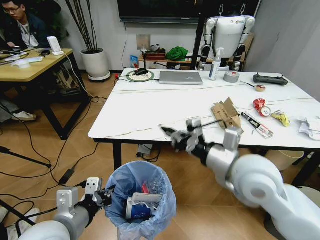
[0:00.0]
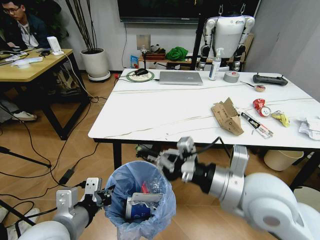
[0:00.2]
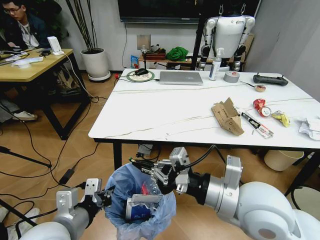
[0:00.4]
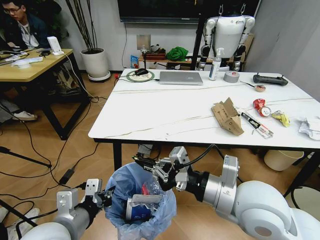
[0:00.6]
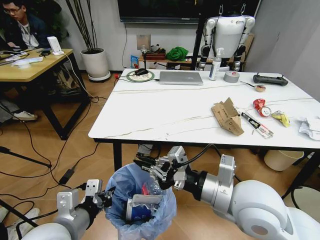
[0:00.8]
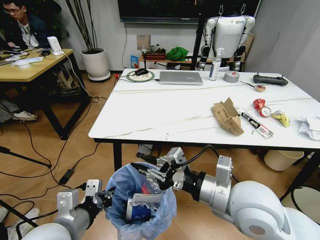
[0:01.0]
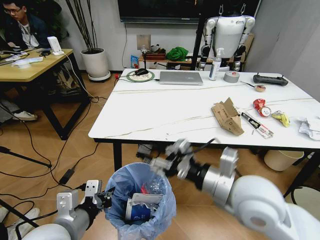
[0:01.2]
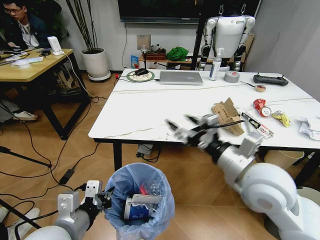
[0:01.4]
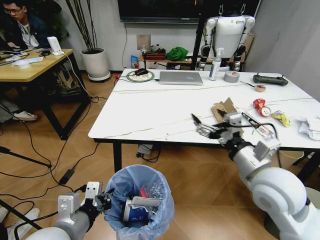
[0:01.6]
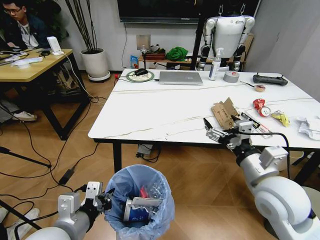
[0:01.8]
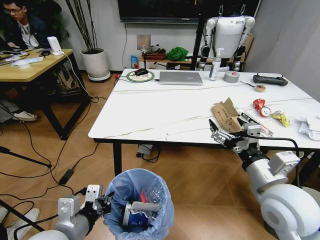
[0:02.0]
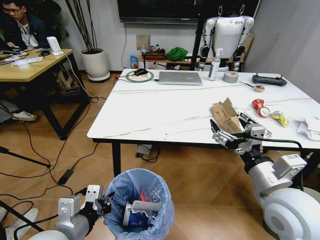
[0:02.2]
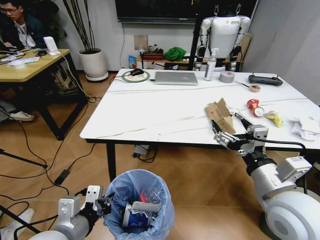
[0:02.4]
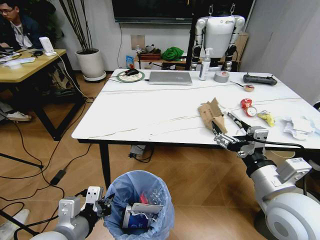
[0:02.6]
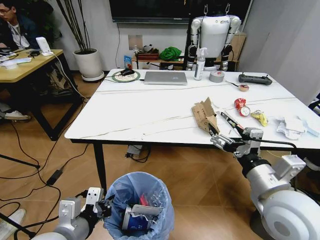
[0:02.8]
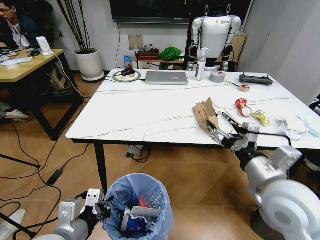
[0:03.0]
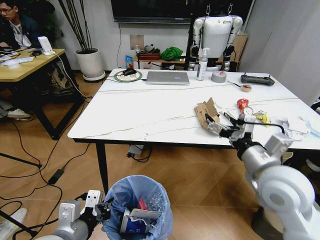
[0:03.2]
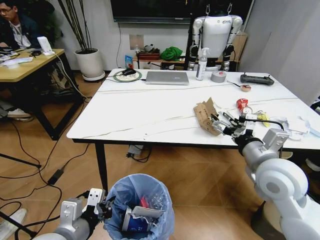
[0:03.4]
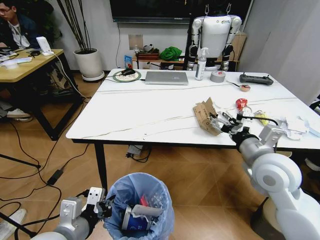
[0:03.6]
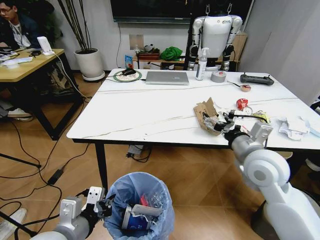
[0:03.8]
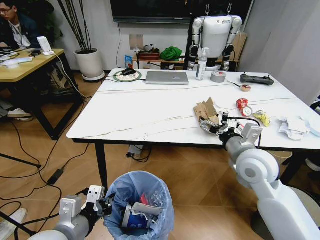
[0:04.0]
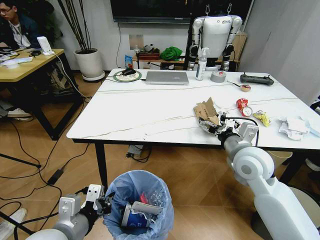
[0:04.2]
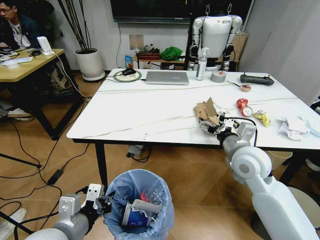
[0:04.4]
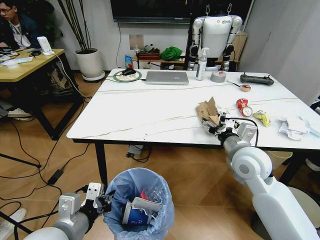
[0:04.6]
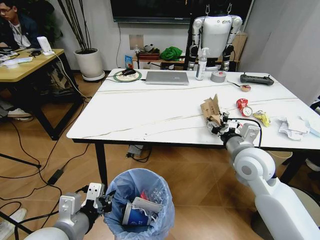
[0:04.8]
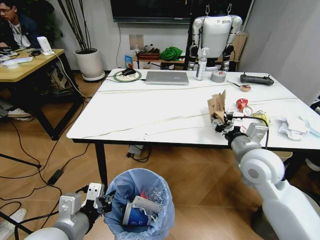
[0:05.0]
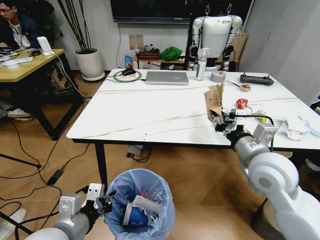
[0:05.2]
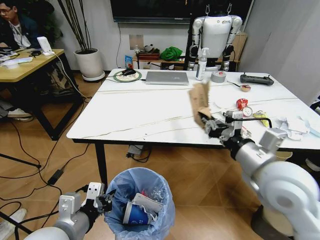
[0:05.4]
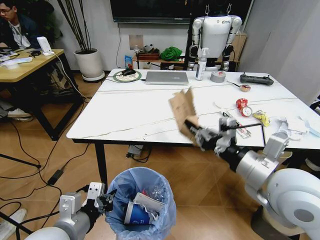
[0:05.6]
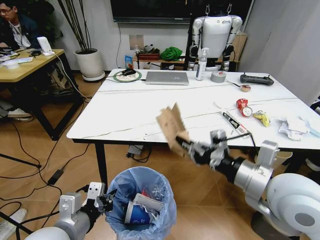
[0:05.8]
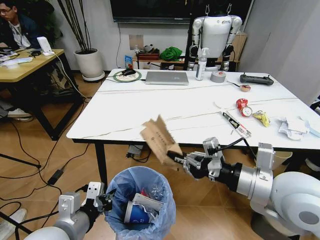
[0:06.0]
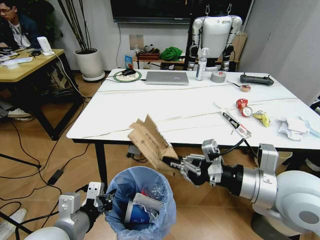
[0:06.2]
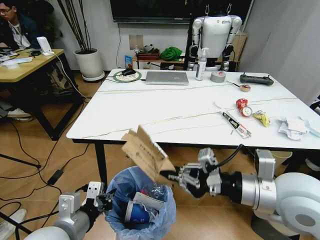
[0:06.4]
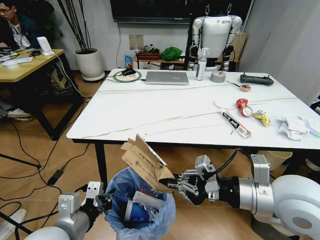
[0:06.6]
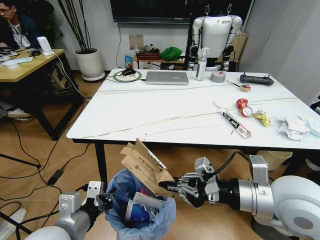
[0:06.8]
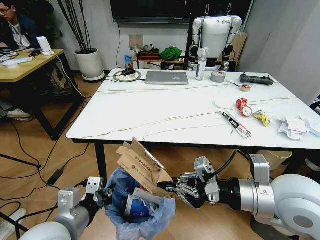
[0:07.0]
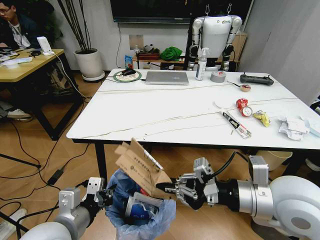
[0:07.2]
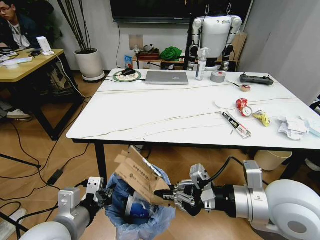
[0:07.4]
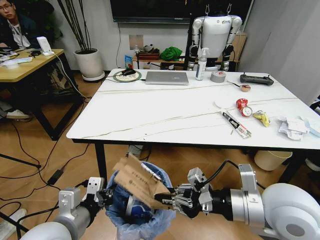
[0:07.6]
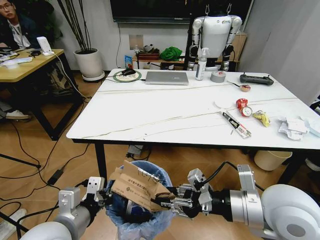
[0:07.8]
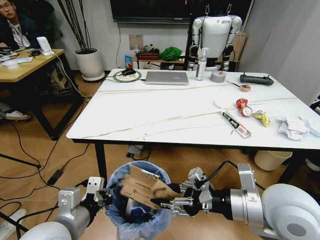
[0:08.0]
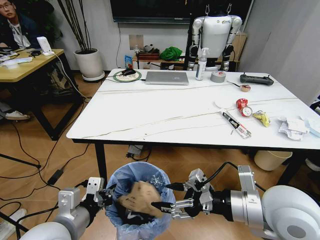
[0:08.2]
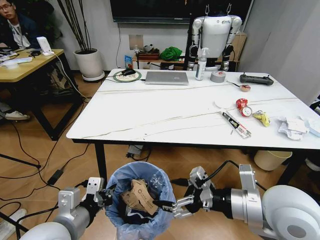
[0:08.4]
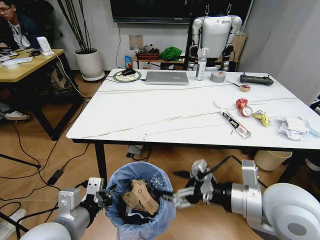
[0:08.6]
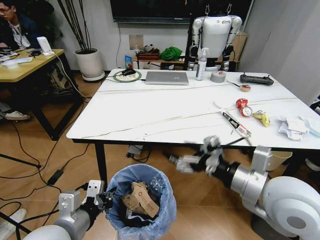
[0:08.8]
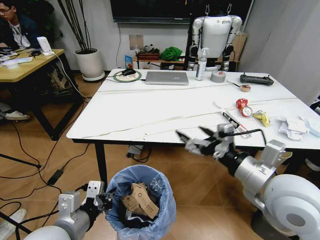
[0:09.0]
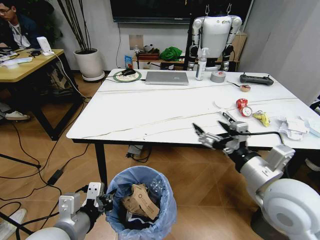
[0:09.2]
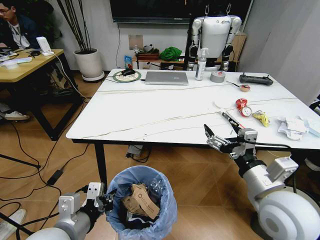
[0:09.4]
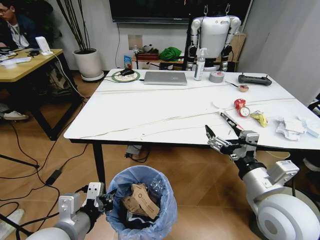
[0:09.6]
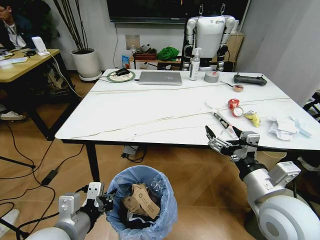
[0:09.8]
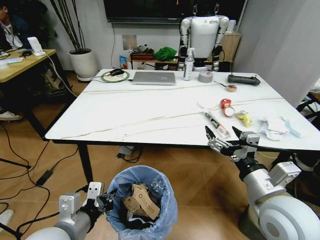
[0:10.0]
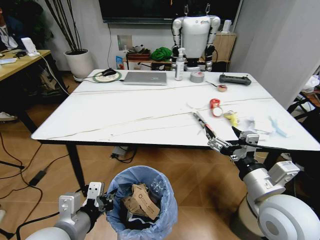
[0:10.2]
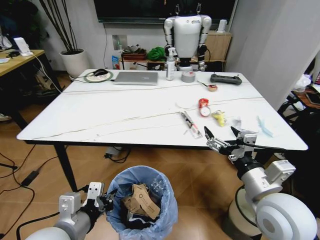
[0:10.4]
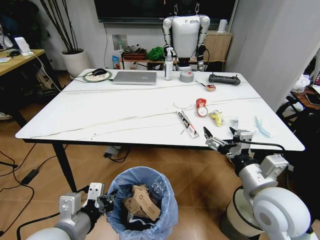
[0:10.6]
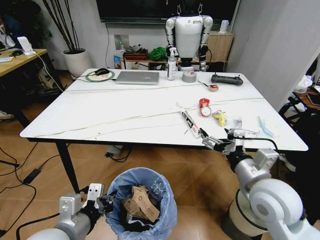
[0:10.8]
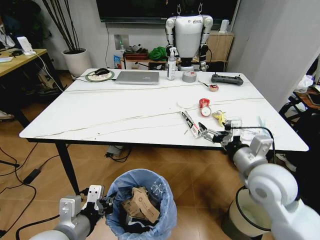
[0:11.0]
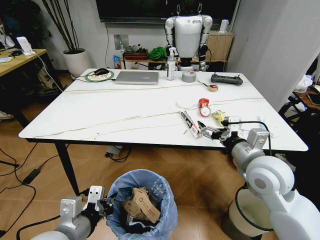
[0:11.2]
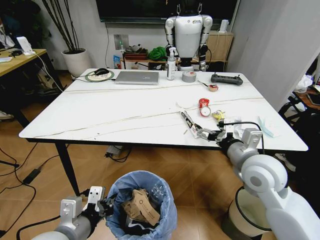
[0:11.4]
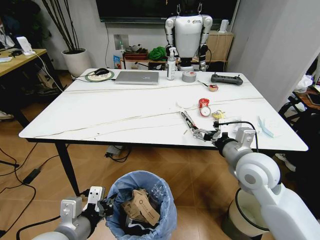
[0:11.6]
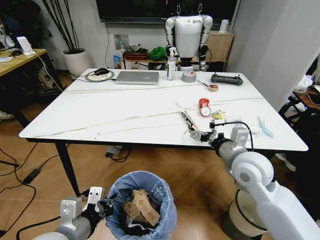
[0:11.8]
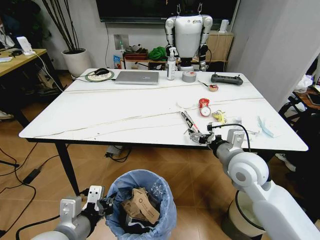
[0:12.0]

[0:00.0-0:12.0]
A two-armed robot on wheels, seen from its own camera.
Task of the whole recording: Pick up the trash bin and place the trash from the table into it.
0:00.0 to 0:01.6: The right gripper opens up.
0:01.6 to 0:03.0: The right gripper moves approximately 5 cm.
0:03.0 to 0:04.4: The right gripper moves forward, some 15 cm.
0:04.4 to 0:06.0: The right gripper travels backward and upward by approximately 15 cm, and closes.
0:06.0 to 0:07.6: The grippers move only a little.
0:07.6 to 0:09.0: The right gripper opens.
0:09.0 to 0:10.4: The right gripper heads downward, covering about 5 cm.
0:10.4 to 0:12.0: The right gripper shifts approximately 10 cm forward.

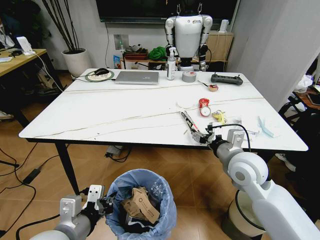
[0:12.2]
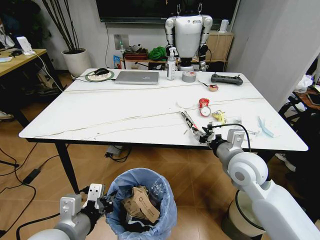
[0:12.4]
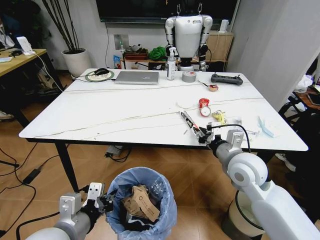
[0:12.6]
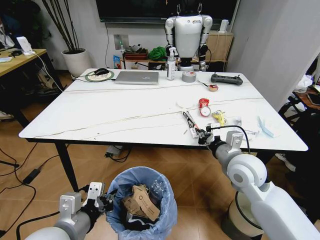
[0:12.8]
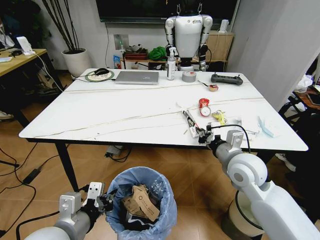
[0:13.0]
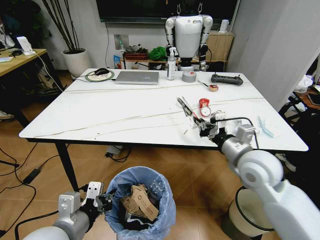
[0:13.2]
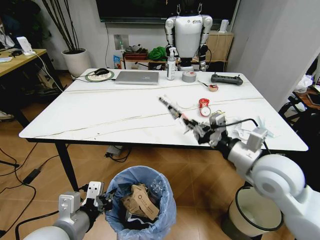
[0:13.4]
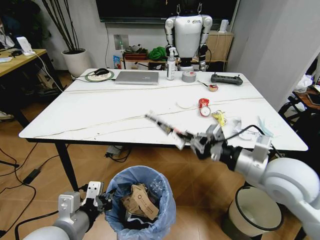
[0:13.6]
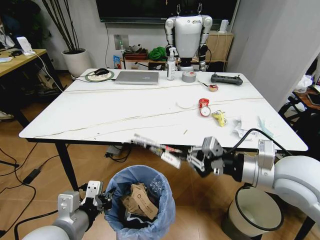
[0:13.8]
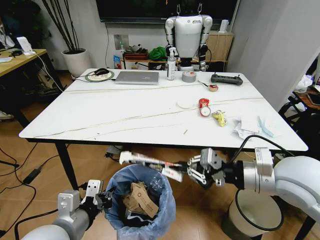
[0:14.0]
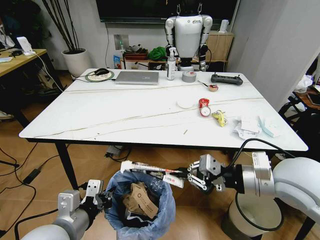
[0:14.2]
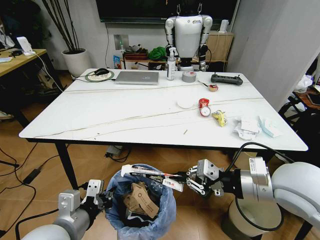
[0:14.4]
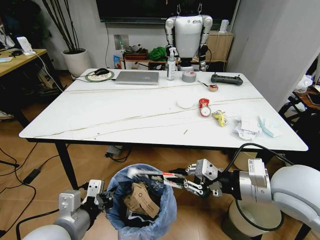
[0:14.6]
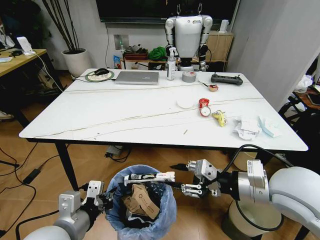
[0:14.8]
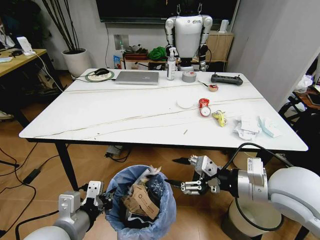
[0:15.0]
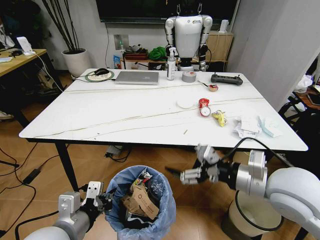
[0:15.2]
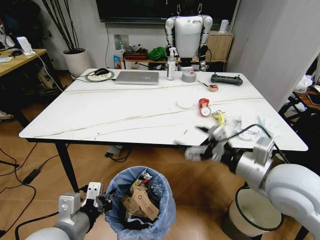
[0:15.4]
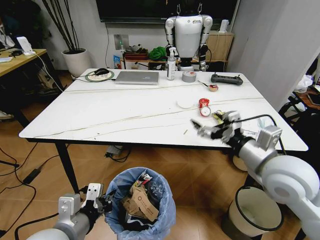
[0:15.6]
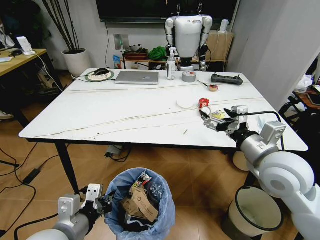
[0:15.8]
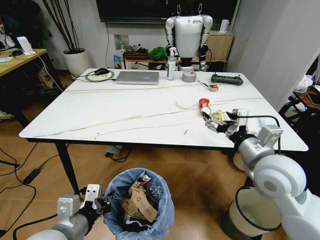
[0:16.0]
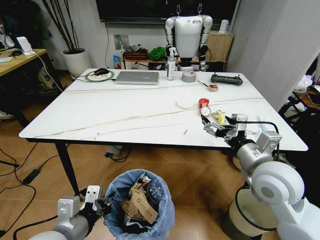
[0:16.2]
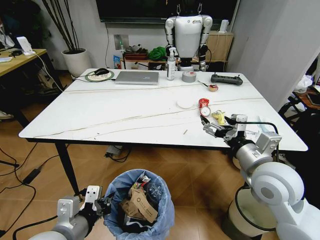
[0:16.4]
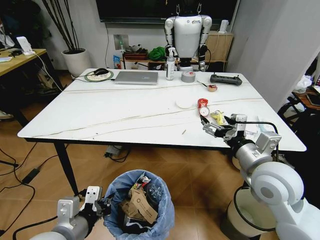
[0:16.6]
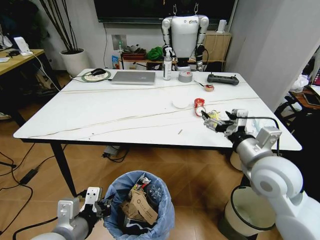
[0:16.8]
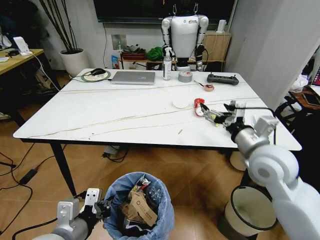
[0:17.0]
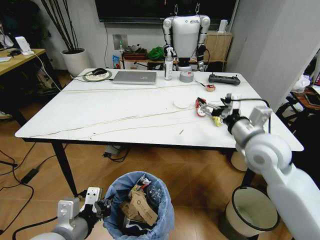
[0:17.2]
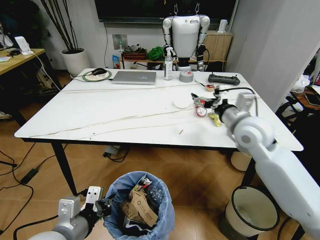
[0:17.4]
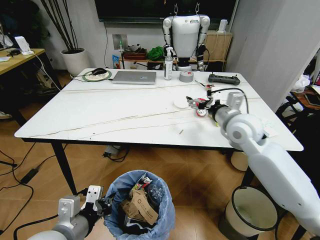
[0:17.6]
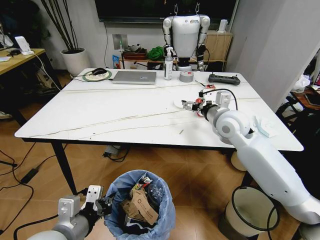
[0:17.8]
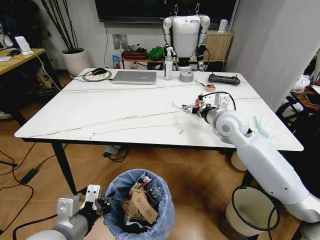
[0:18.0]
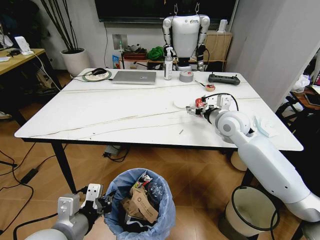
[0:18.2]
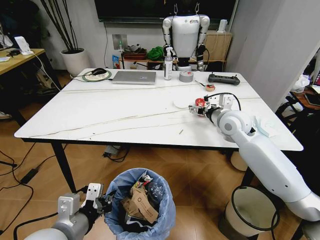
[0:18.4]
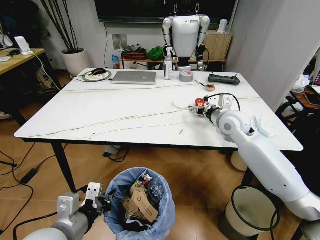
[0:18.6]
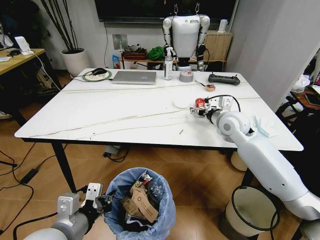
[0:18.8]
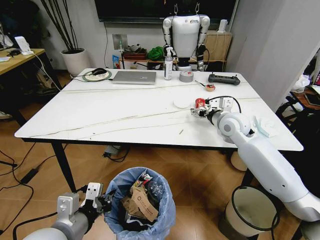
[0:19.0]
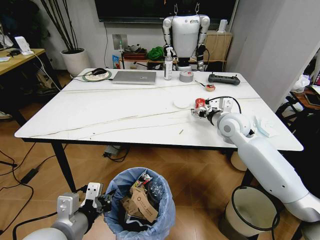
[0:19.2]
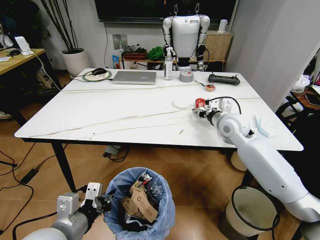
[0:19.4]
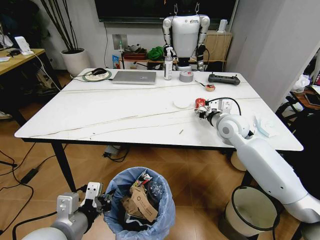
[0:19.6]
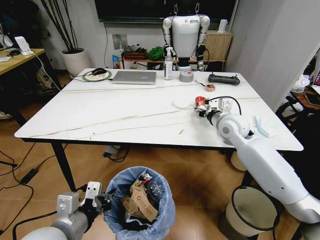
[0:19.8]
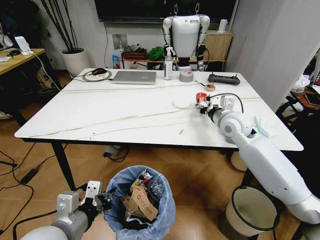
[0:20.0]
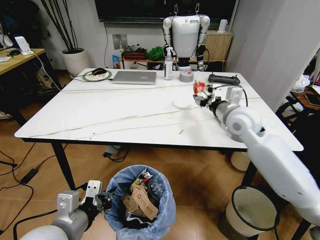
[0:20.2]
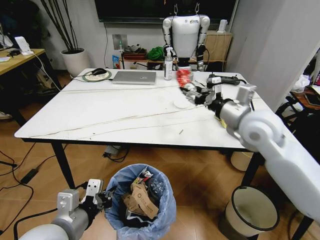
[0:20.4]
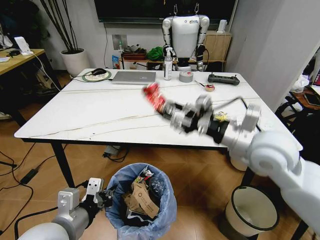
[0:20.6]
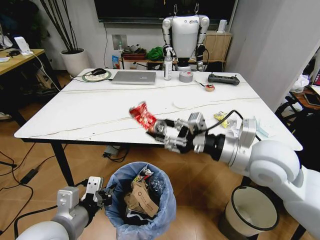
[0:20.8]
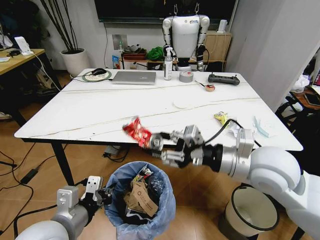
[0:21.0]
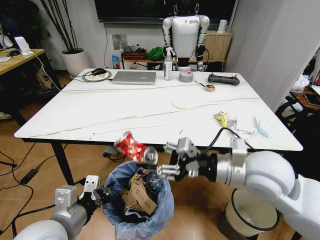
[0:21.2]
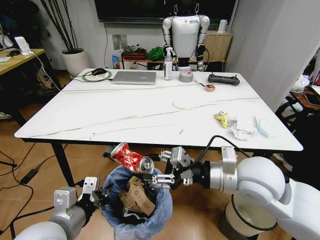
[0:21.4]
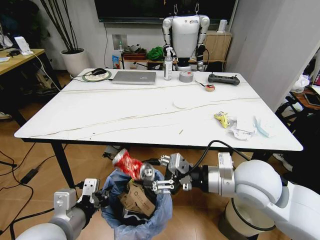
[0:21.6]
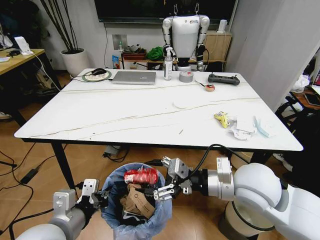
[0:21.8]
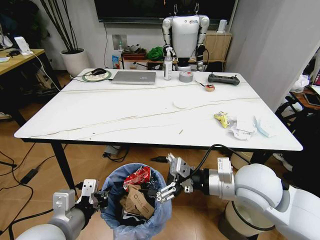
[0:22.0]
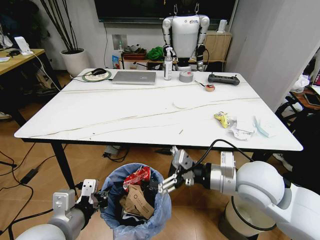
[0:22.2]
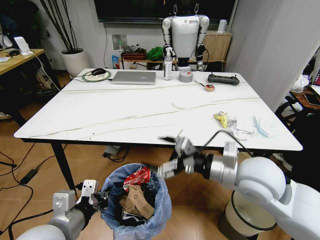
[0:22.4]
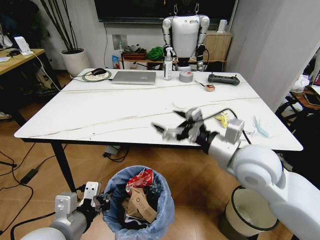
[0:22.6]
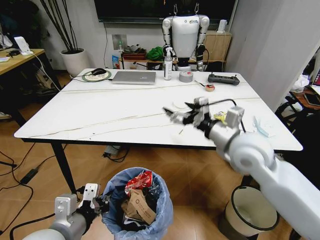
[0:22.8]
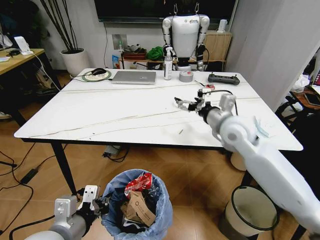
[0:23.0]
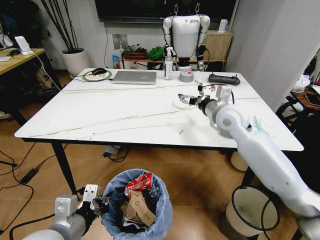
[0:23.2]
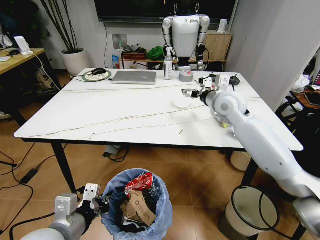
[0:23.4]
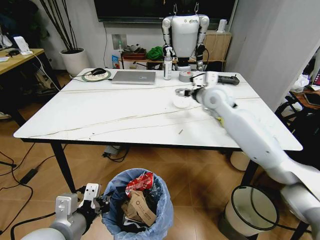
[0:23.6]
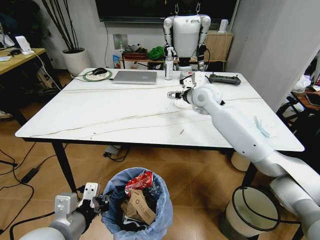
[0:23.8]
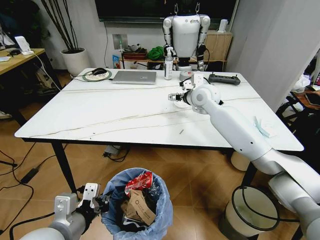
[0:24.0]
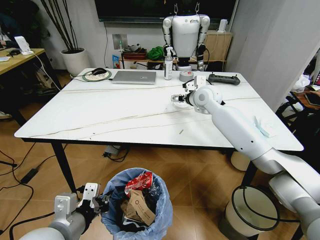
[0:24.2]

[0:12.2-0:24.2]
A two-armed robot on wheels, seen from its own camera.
Task of the whole recording: Pick up the trash bin and place the trash from the table into it.
0:12.2 to 0:13.8: The right gripper moves upward and backward, about 10 cm, and closes up.
0:13.8 to 0:15.2: The right gripper opens its fingers.
0:16.6 to 0:18.2: The right gripper is displaced forward by about 20 cm.
0:18.2 to 0:19.8: The right gripper closes its fingers.
0:19.8 to 0:21.2: The right gripper goes about 20 cm backward.
0:21.2 to 0:22.6: The right gripper opens its fingers.
0:22.6 to 0:24.2: The right gripper goes some 30 cm forward.
